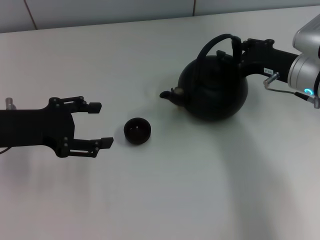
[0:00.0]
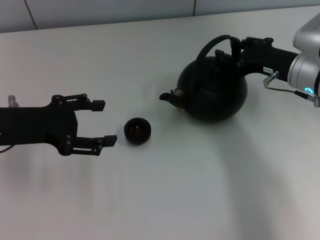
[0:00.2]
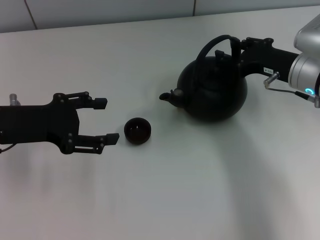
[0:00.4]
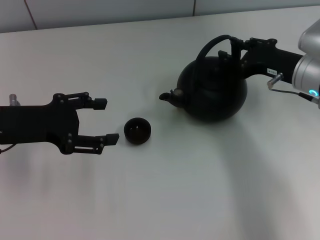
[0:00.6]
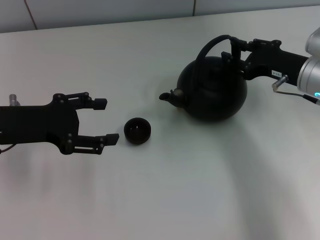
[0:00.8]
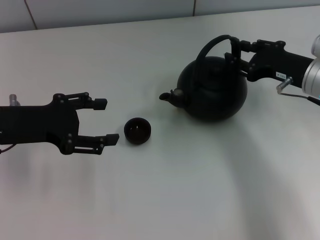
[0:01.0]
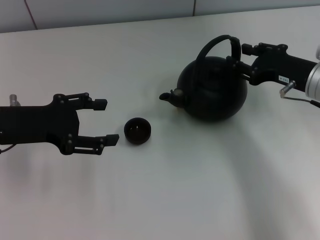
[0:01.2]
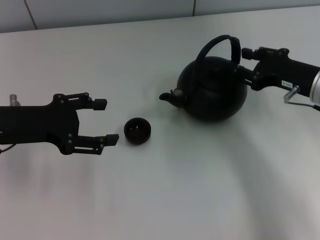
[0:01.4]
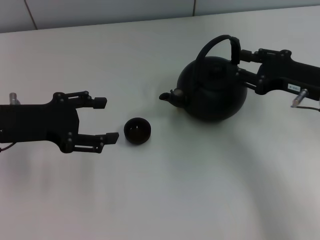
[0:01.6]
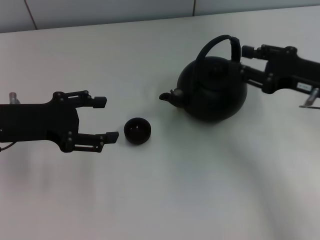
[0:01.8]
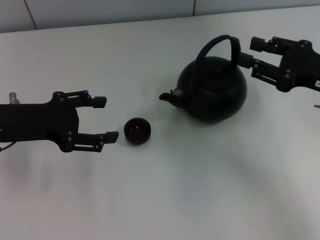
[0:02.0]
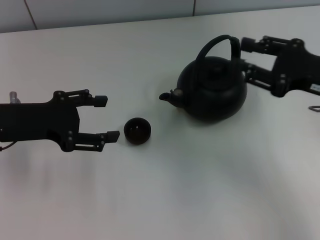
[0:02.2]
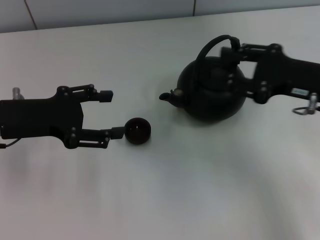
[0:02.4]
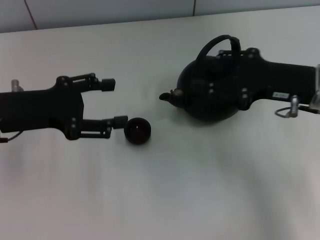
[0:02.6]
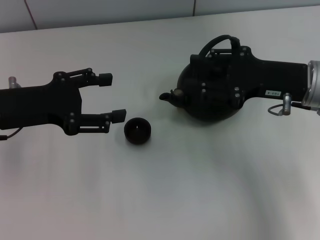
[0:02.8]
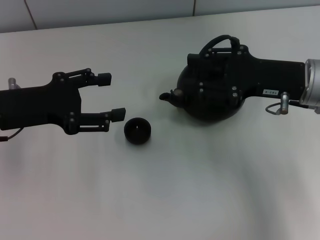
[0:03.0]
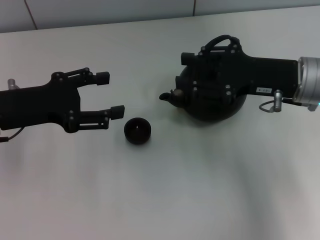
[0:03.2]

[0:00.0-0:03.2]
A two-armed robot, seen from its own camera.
Task of the whole recording: Grasp the handle of the teapot with one hand and pour tea into the teacup.
0:00.0 to 0:01.6: The right gripper heads backward, covering approximately 5 cm.
0:01.6 to 0:03.2: The right gripper ends up roughly 5 cm from where it was.
